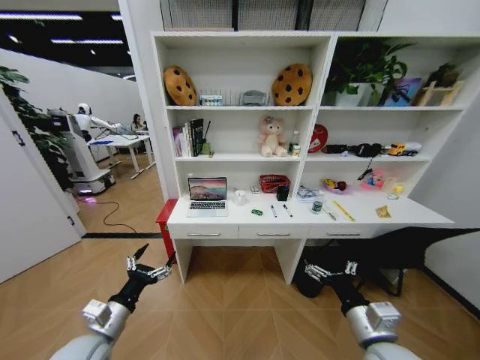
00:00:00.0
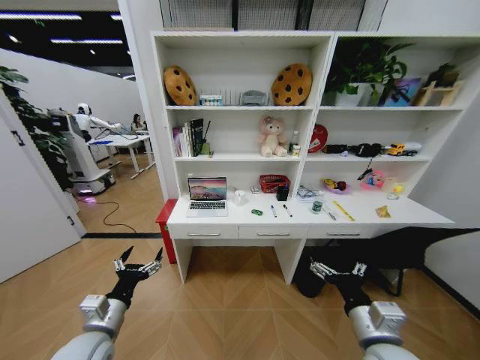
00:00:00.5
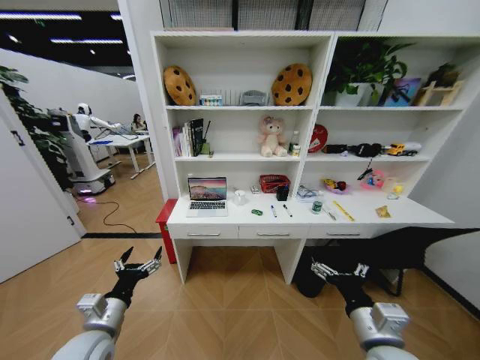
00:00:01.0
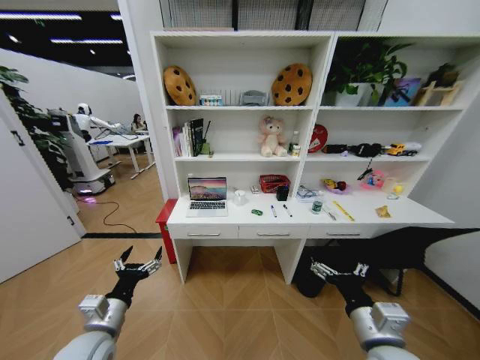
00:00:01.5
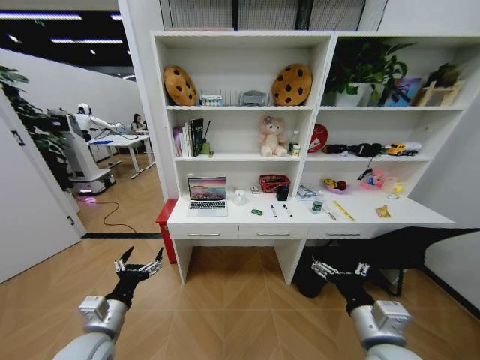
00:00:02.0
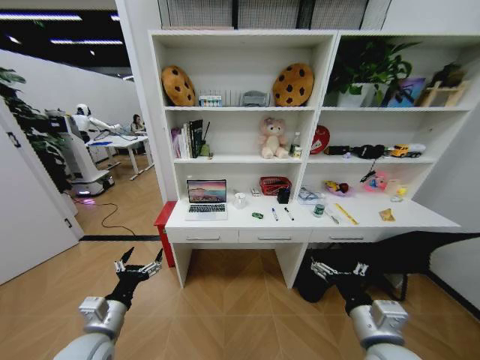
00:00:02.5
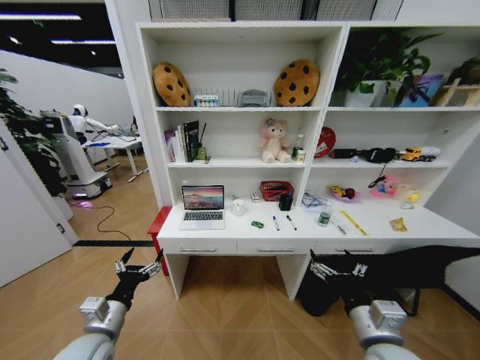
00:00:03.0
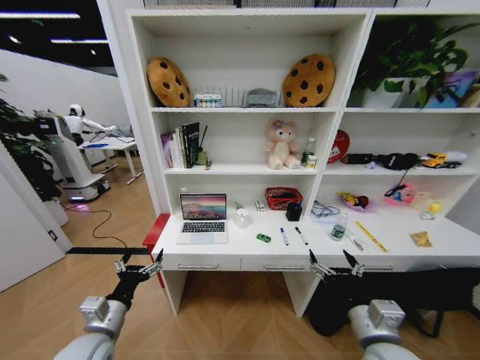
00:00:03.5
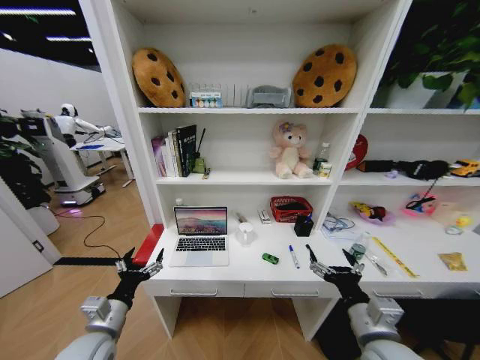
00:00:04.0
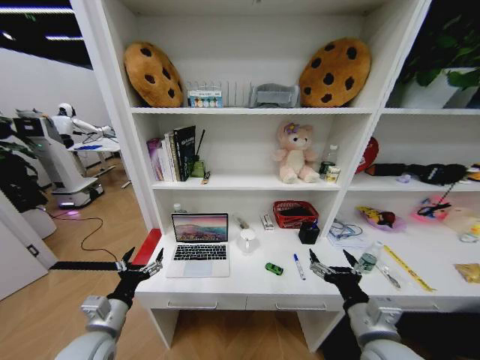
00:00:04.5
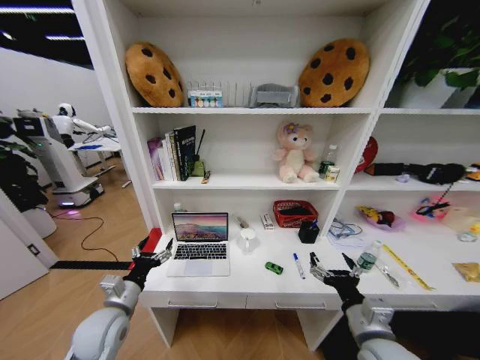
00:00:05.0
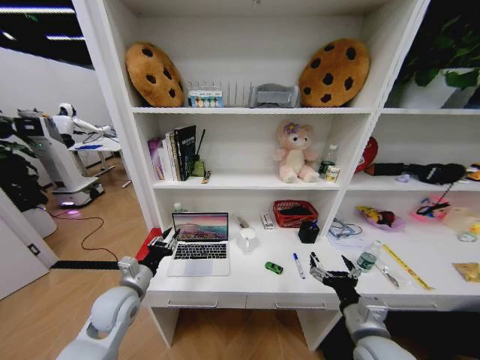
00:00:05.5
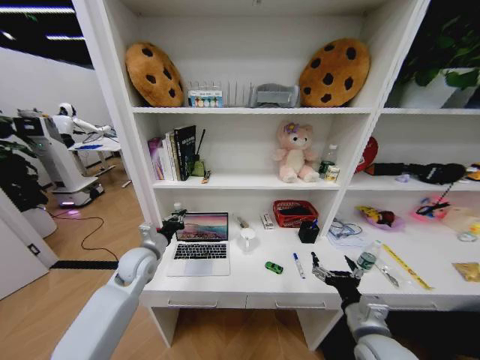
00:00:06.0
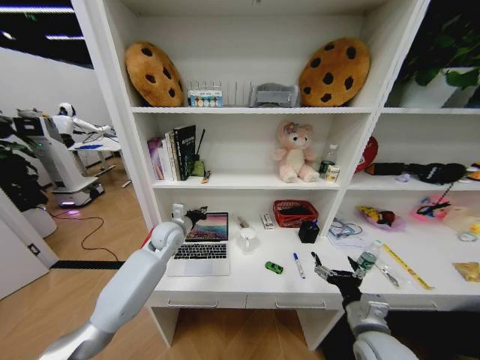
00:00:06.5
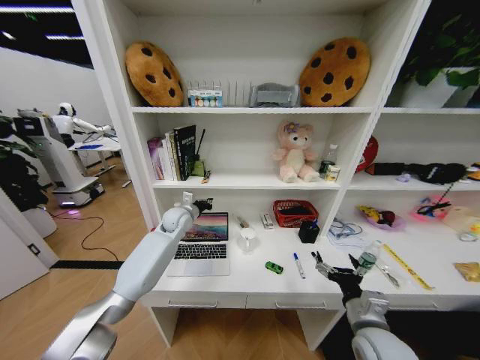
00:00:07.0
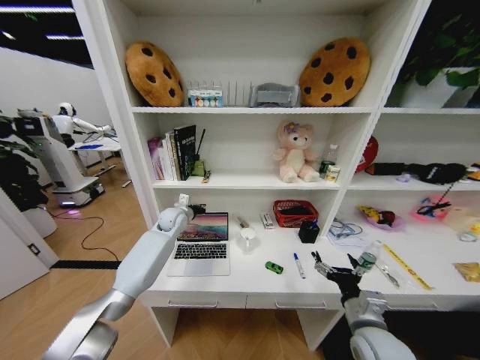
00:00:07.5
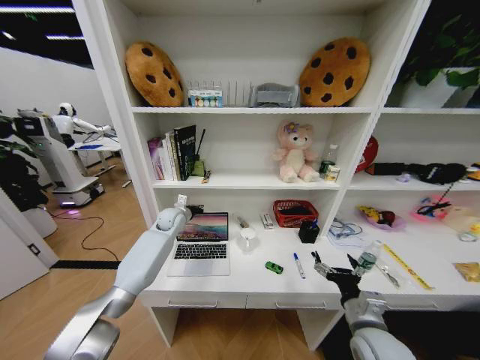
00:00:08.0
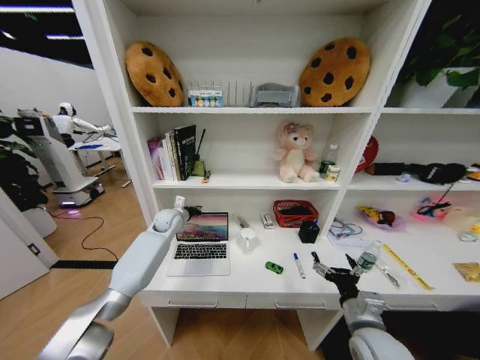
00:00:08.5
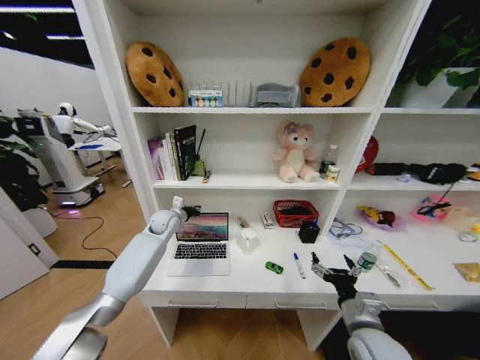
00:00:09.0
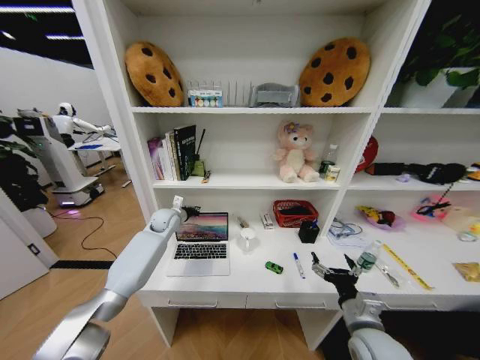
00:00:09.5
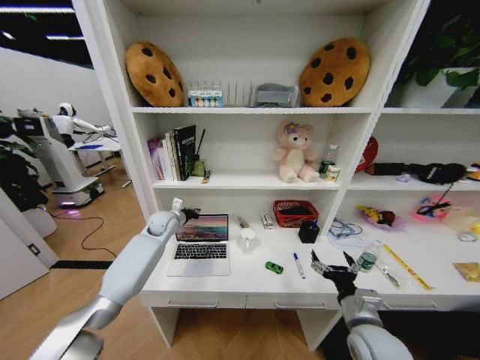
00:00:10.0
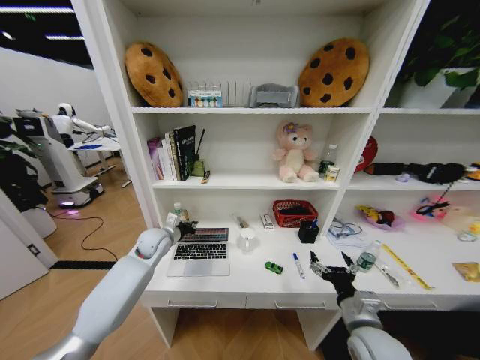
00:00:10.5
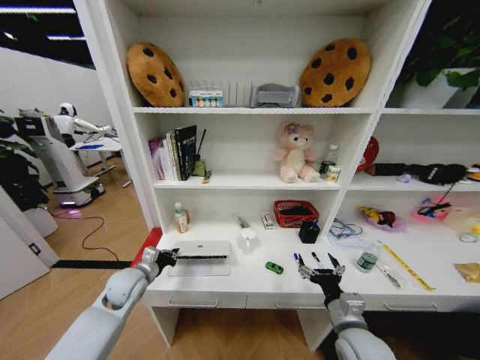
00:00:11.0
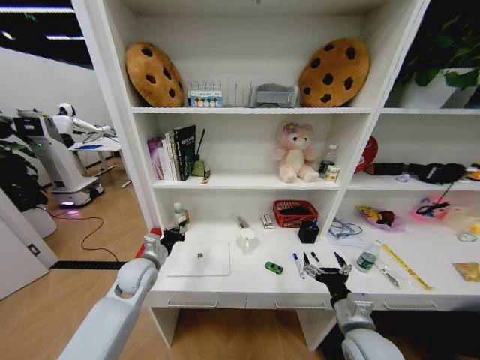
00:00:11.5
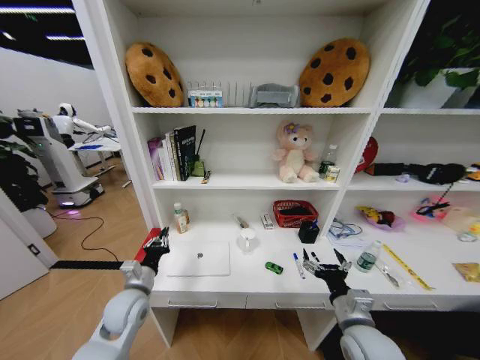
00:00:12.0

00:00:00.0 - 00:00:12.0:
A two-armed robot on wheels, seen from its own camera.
Task of the whole recording: Organize the objects on the table.
00:00:04.0 - 00:00:06.0: The left gripper heads forward, covering roughly 20 cm, and closes.
00:00:06.0 - 00:00:08.0: The left gripper shifts roughly 20 cm forward.
00:00:08.0 - 00:00:10.0: The grippers make only small movements.
00:00:10.0 - 00:00:12.0: The left gripper travels backward by some 25 cm.

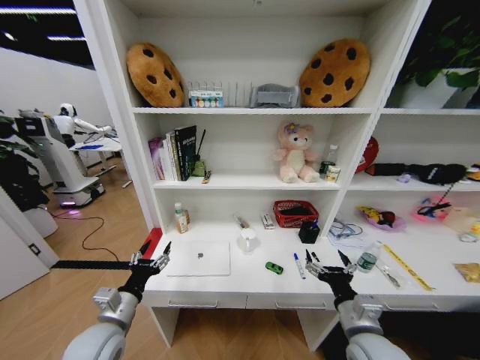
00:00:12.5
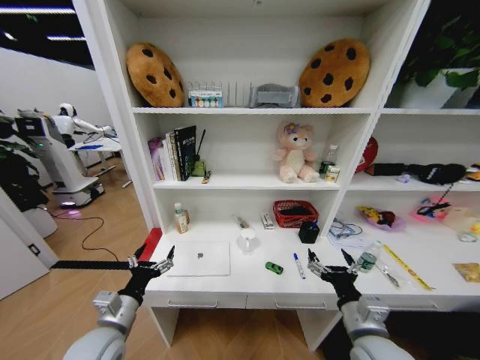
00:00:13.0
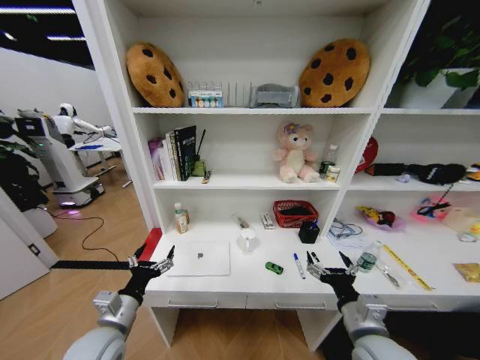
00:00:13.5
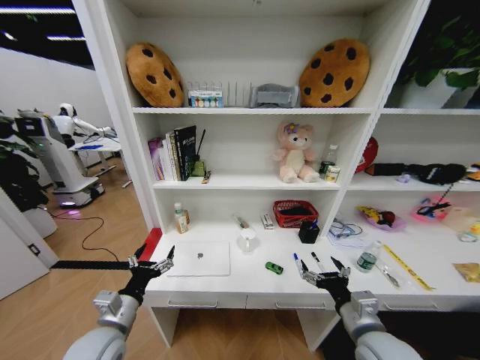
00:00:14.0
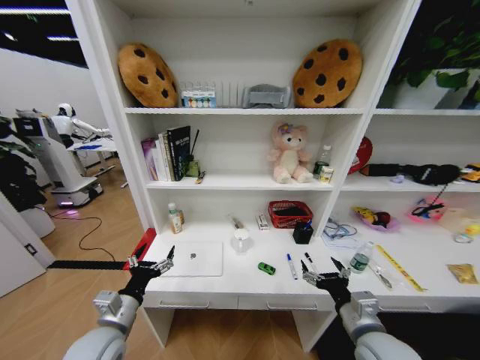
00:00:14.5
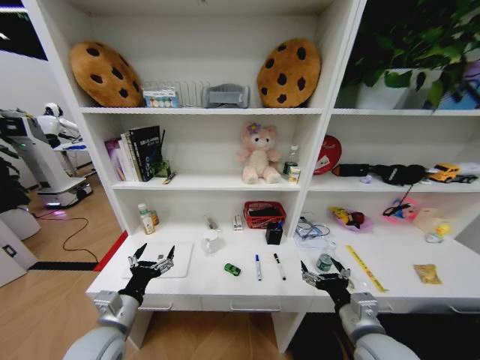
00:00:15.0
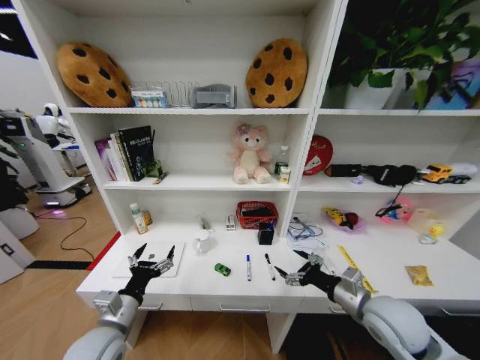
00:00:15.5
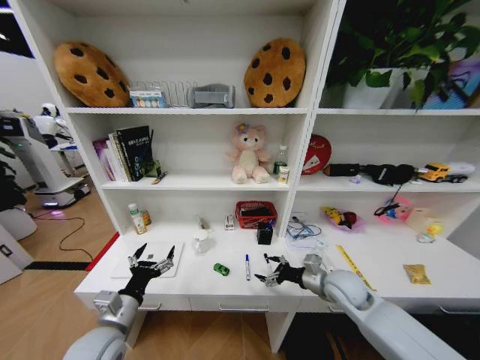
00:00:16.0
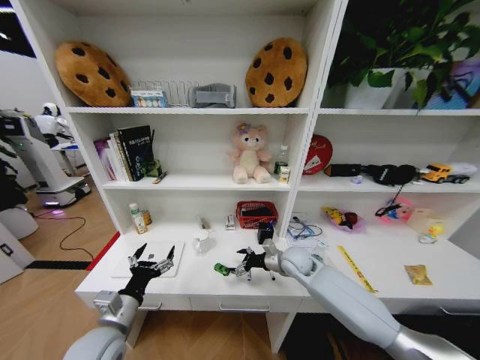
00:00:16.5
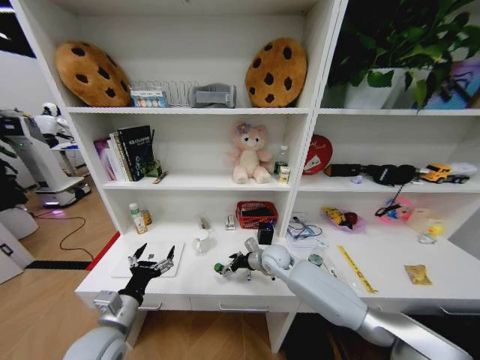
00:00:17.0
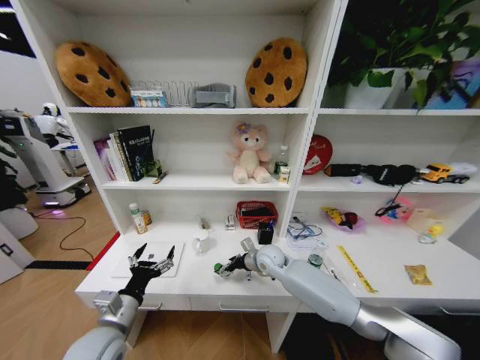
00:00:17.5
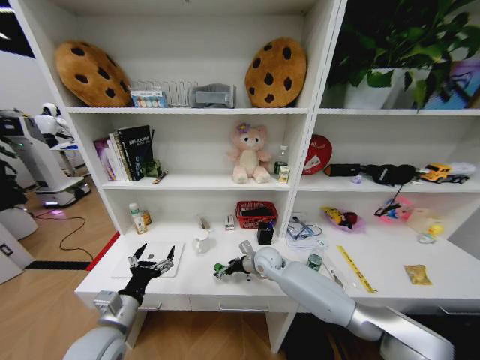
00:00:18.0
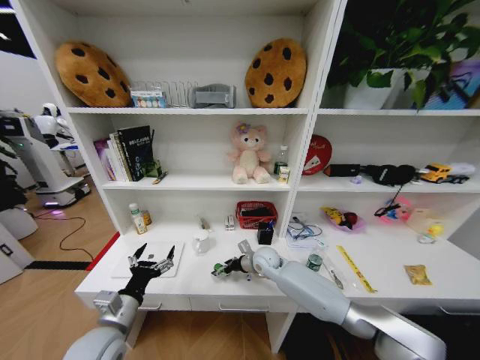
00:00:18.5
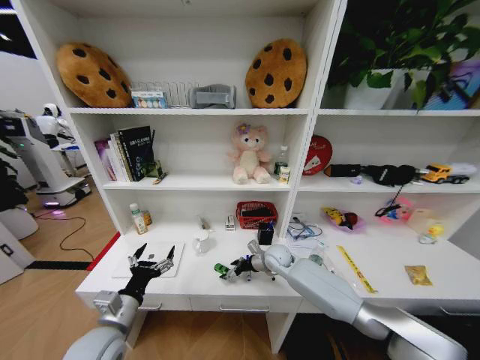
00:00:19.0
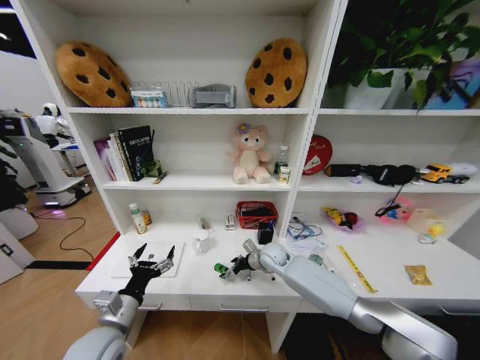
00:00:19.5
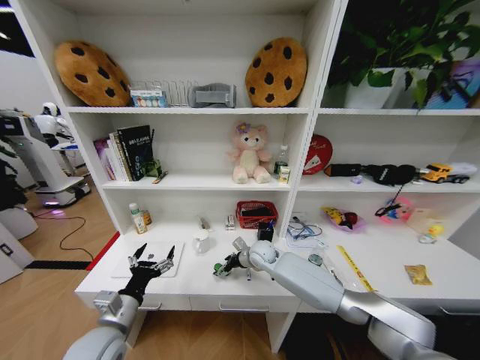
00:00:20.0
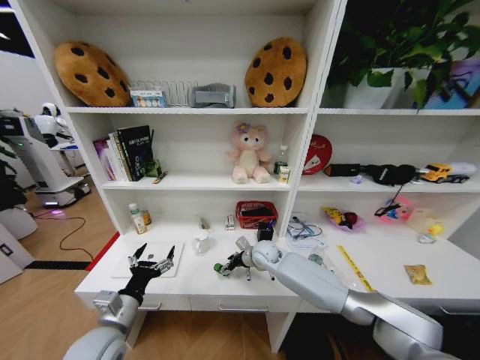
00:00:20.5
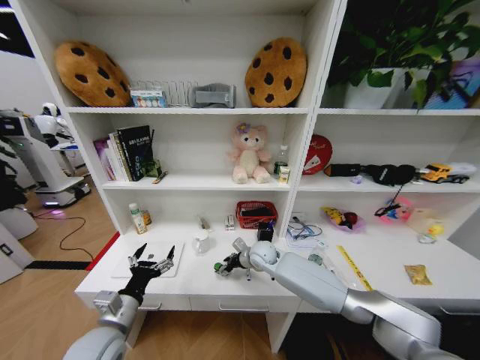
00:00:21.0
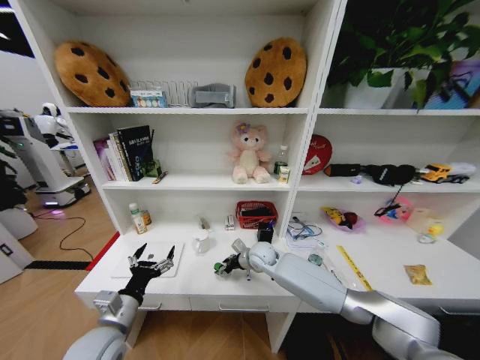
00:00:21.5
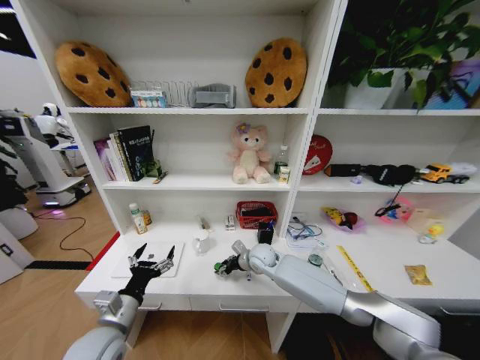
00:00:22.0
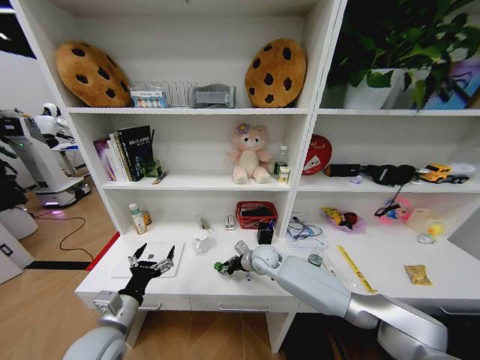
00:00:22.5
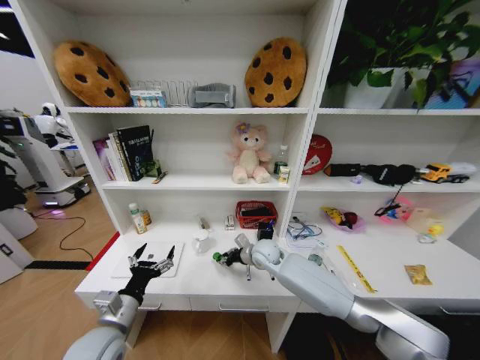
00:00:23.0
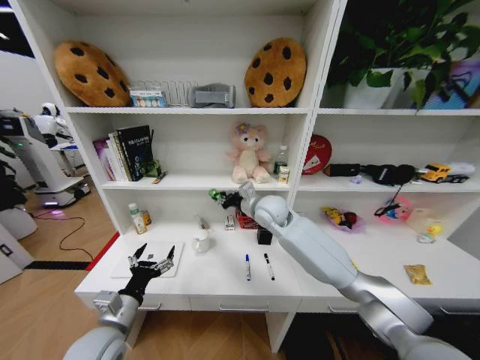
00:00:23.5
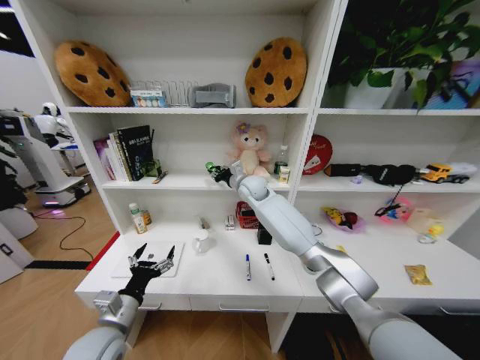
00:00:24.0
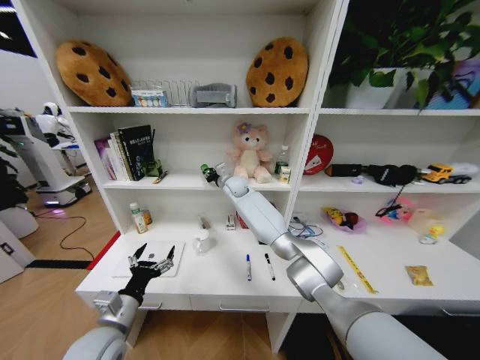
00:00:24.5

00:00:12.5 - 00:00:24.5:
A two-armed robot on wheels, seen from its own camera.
Task of the whole recording: Organize the objects on the table.
00:00:14.5 - 00:00:16.5: The right gripper shifts about 25 cm forward.
00:00:16.5 - 00:00:18.5: The right gripper travels to the left by approximately 10 cm.
00:00:18.5 - 00:00:20.5: The grippers move only a little.
00:00:20.5 - 00:00:22.5: The right gripper closes.
00:00:22.5 - 00:00:24.5: The right gripper heads upward, forward and to the left, covering approximately 30 cm.

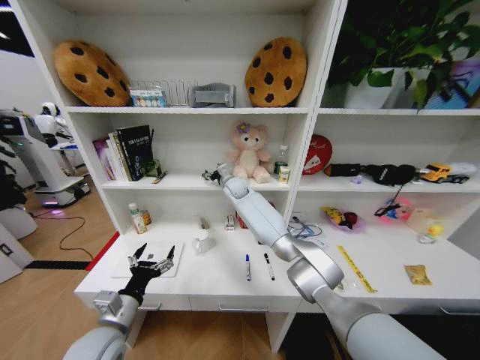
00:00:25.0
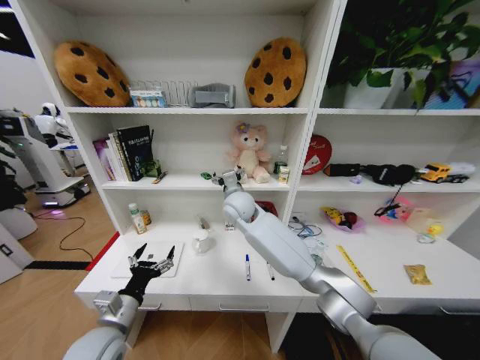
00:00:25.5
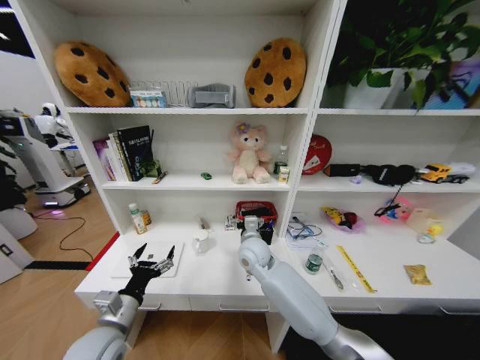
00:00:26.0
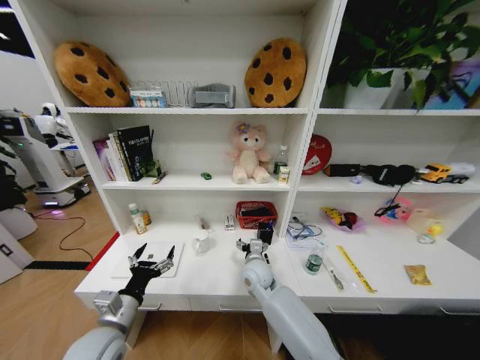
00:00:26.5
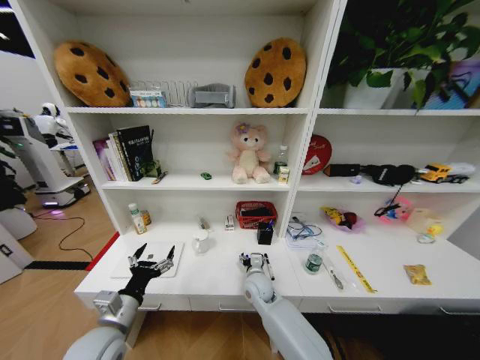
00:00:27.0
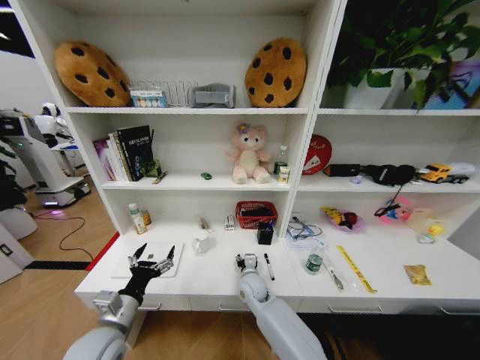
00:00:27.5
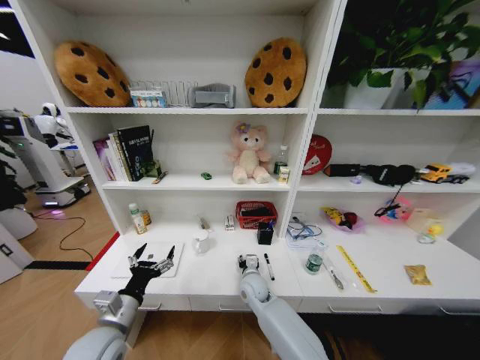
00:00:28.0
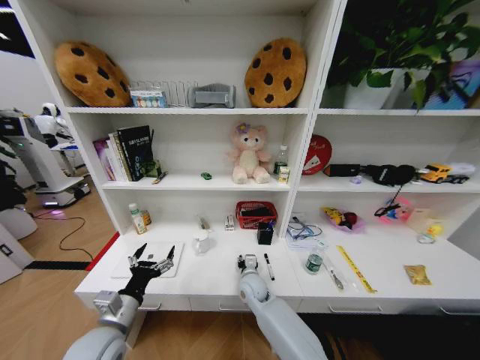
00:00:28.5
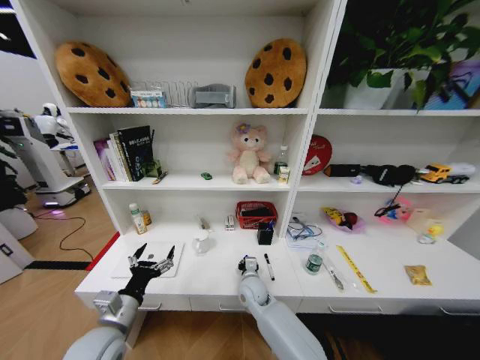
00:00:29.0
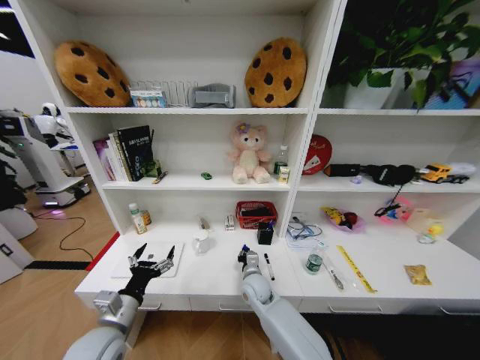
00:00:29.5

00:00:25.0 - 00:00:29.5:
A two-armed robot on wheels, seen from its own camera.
Task of the whole recording: Organize the objects on the table.
00:00:25.0 - 00:00:27.0: The right gripper heads backward and downward, covering approximately 35 cm.
00:00:27.0 - 00:00:29.5: The right gripper closes up.
